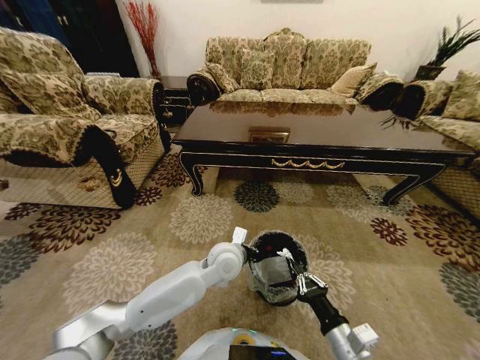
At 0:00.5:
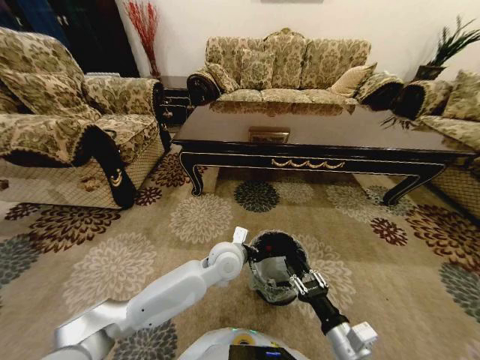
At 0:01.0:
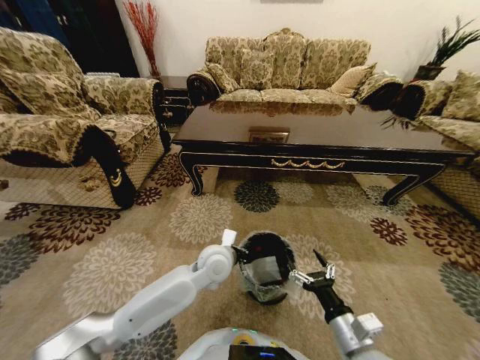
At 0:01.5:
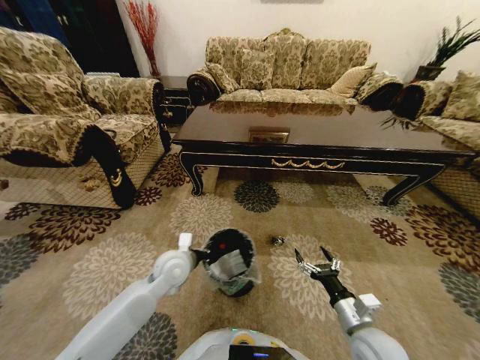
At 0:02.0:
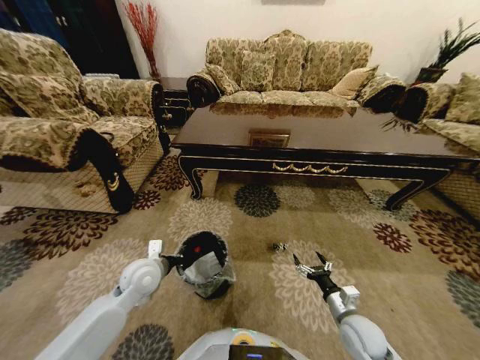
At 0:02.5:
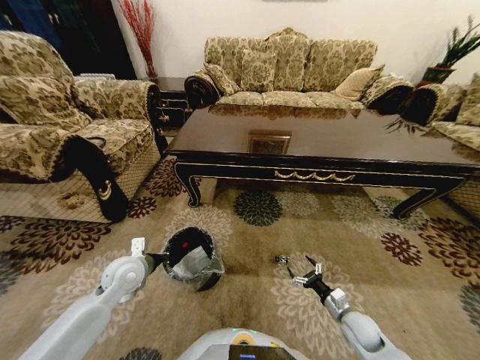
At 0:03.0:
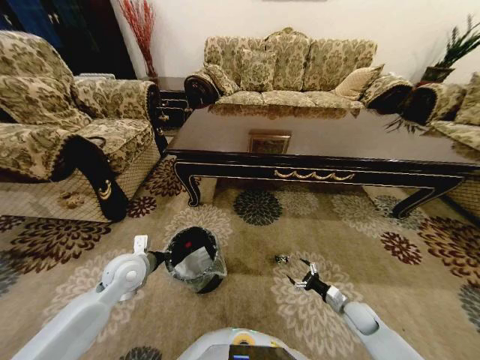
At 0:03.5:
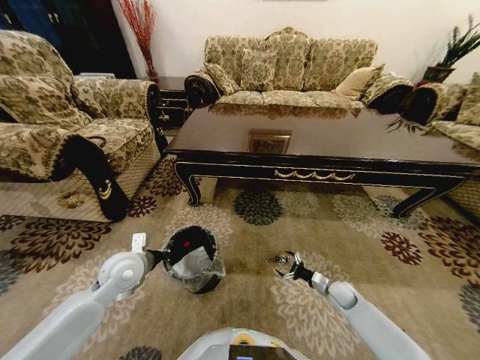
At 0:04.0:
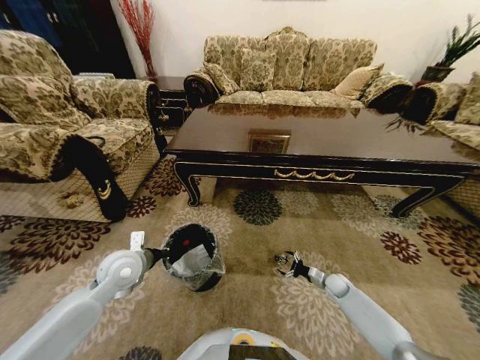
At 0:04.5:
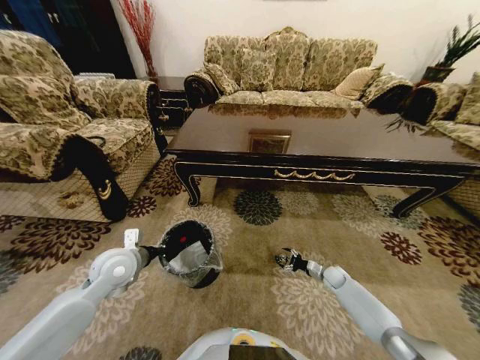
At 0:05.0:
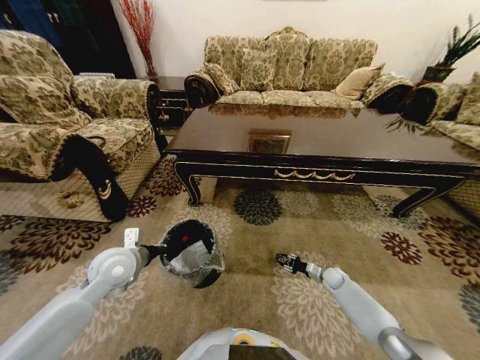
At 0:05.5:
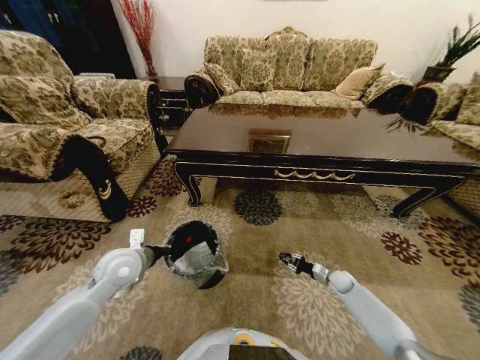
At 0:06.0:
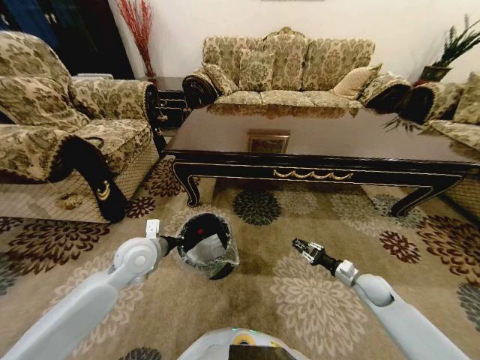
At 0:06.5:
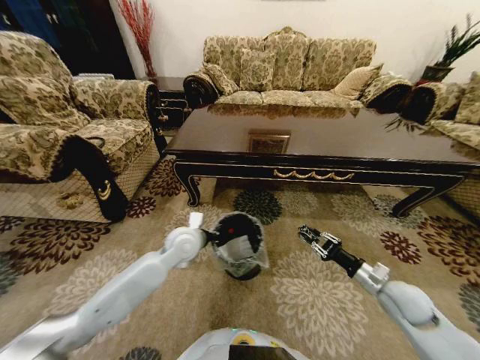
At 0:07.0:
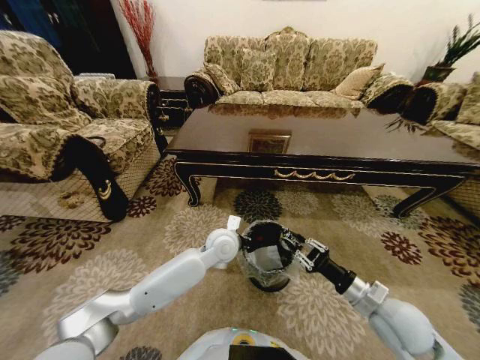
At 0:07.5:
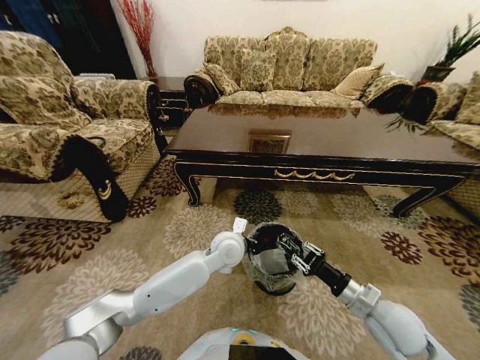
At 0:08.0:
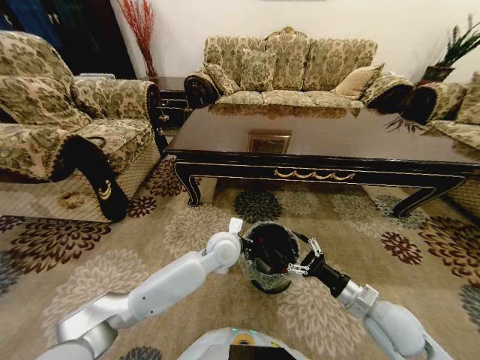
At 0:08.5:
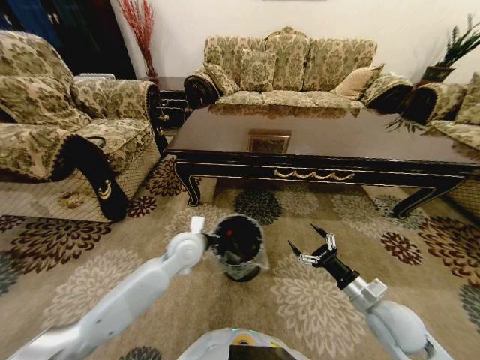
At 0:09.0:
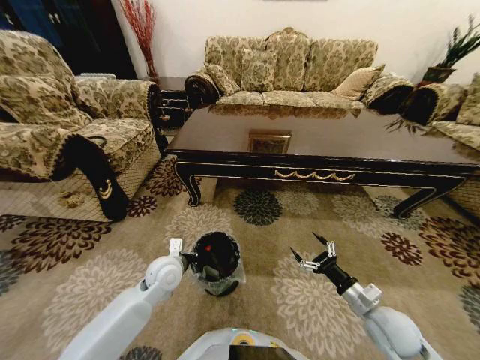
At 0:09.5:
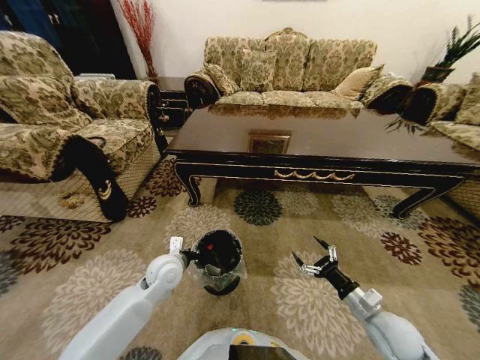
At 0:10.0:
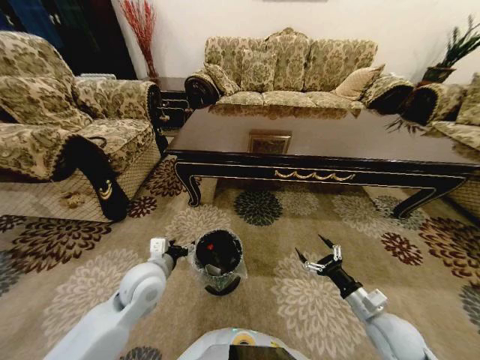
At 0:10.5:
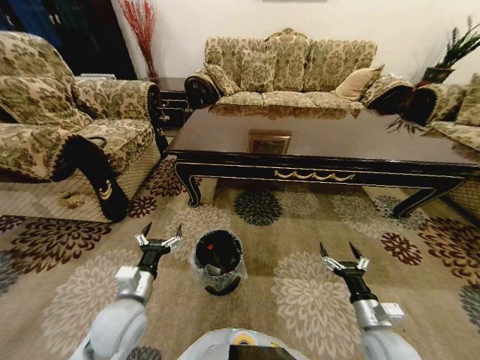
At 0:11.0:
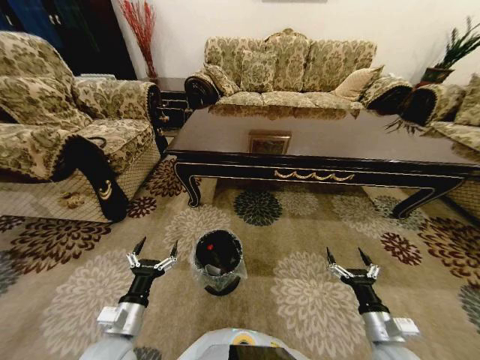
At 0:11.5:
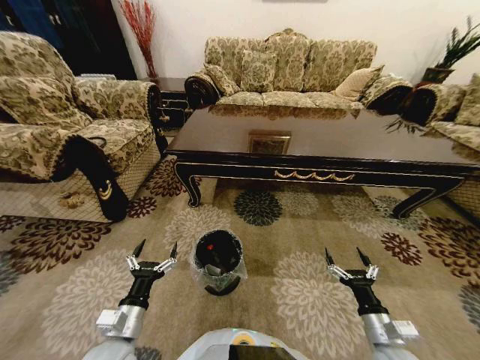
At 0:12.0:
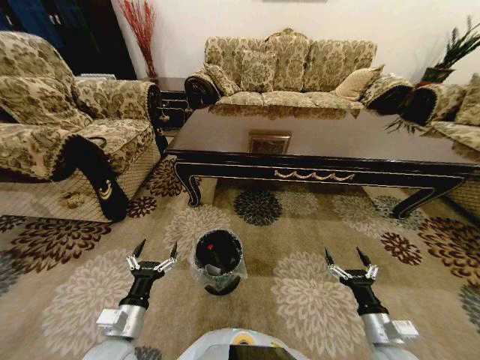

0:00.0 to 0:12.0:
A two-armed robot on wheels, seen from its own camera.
Task of the whole recording: Move to the front of the table and pick up the trash from the floor, then place it into the trash bin.
0:00.0 to 0:02.0: The right gripper goes approximately 15 cm downward, forward and to the right, and opens its fingers, while the left gripper moves to the left, about 20 cm.
0:02.0 to 0:04.0: The left gripper ends up some 5 cm from where it was. Meanwhile the right gripper travels forward, downward and to the right by roughly 20 cm.
0:04.0 to 0:06.0: The right gripper goes some 10 cm upward, and closes its fingers.
0:06.0 to 0:08.0: The left gripper heads to the right, covering approximately 20 cm. The right gripper travels upward, backward and to the left by about 20 cm, and opens its fingers.
0:08.0 to 0:10.0: The left gripper shifts approximately 20 cm to the left and backward, and opens. The right gripper is displaced downward by roughly 5 cm.
0:10.0 to 0:12.0: The left gripper moves backward and downward, some 15 cm, while the right gripper is displaced backward by some 5 cm.

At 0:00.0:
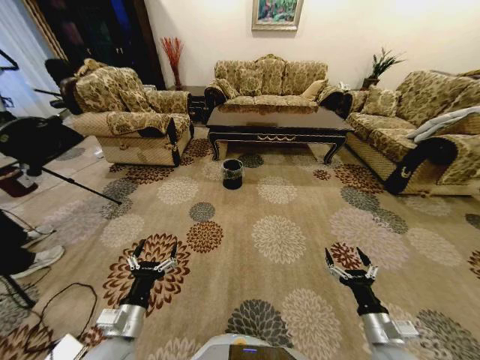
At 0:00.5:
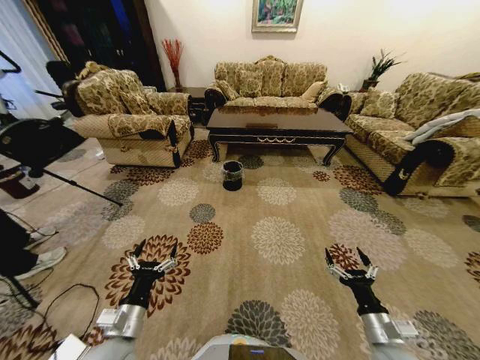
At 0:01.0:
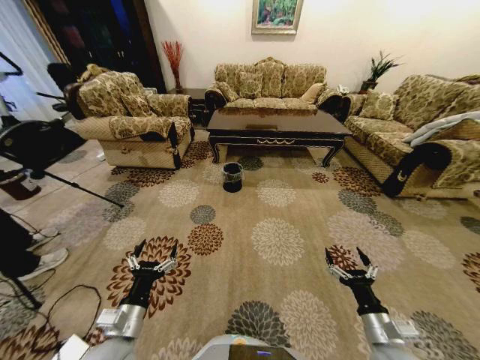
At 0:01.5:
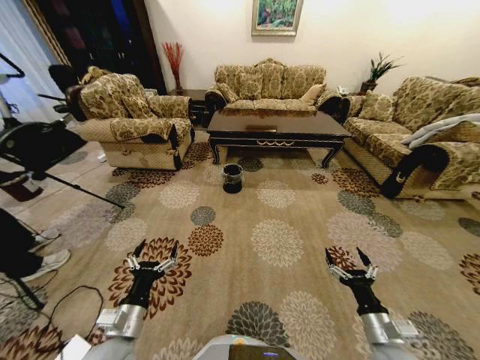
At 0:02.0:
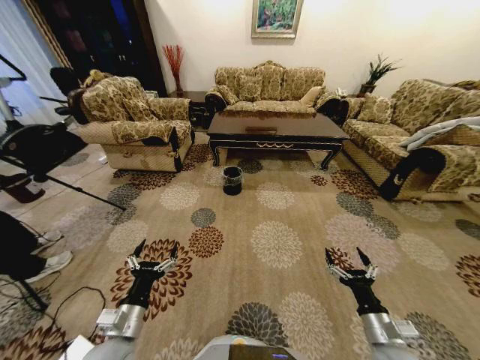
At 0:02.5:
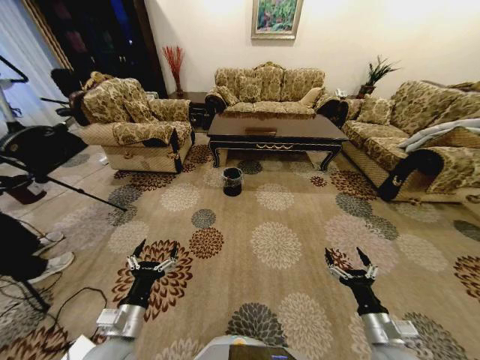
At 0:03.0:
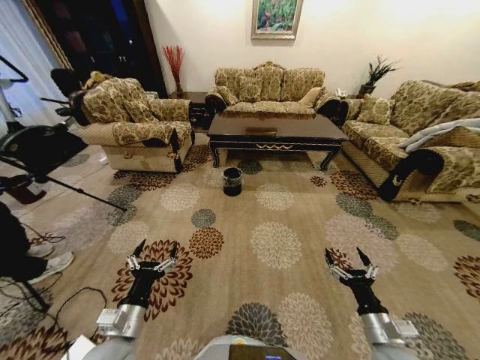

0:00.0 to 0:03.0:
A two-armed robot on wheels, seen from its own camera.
Task of the whole recording: Move to the front of the table and pick up the trash from the floor, then place it into the trash bin.
0:01.5 to 0:03.0: Both grippers stay put.

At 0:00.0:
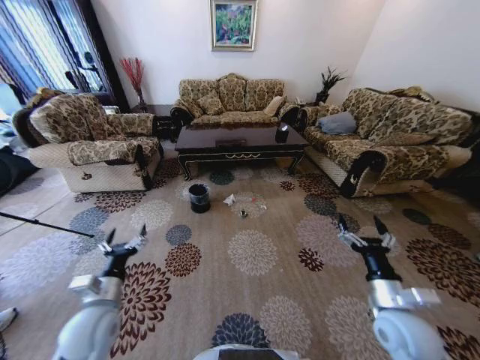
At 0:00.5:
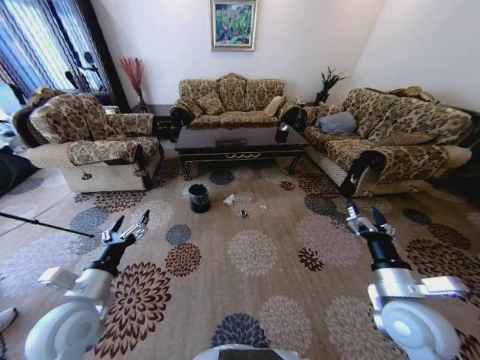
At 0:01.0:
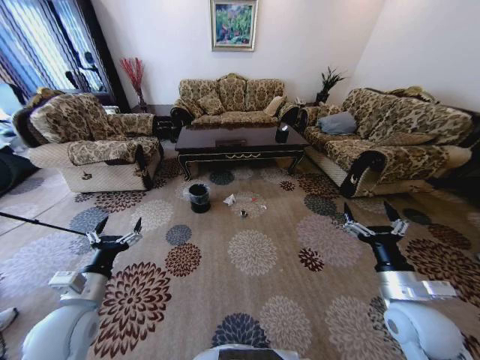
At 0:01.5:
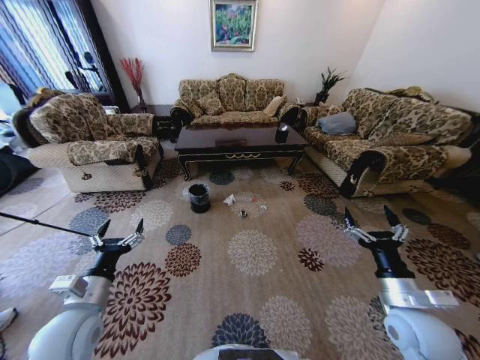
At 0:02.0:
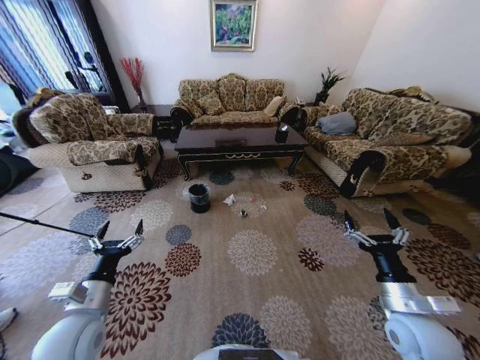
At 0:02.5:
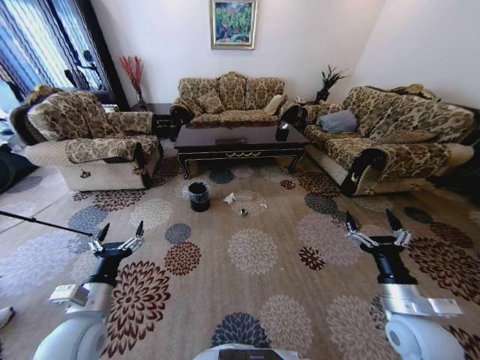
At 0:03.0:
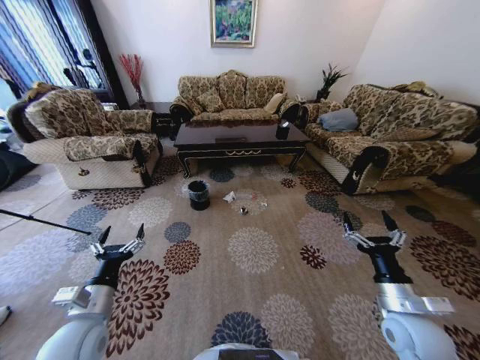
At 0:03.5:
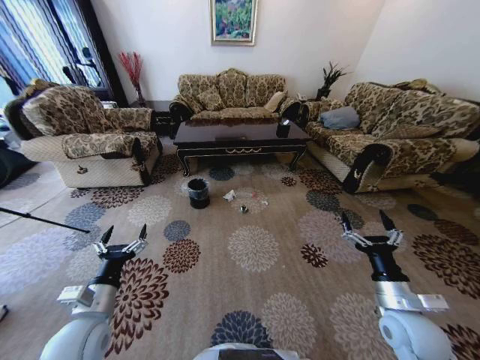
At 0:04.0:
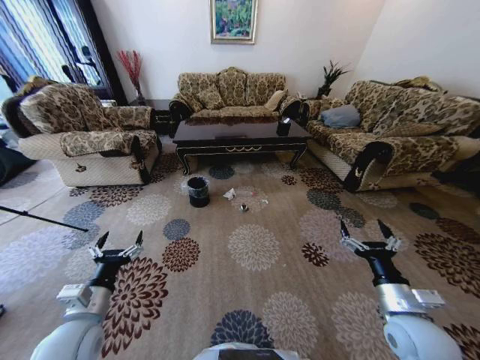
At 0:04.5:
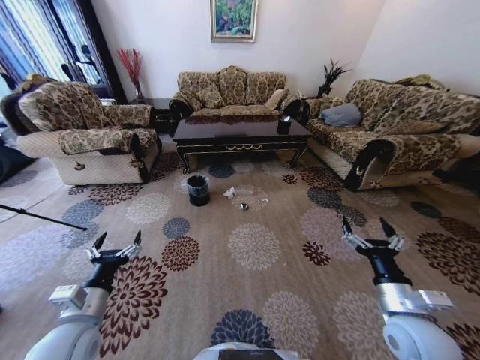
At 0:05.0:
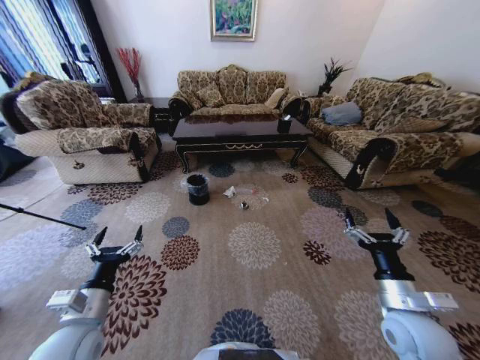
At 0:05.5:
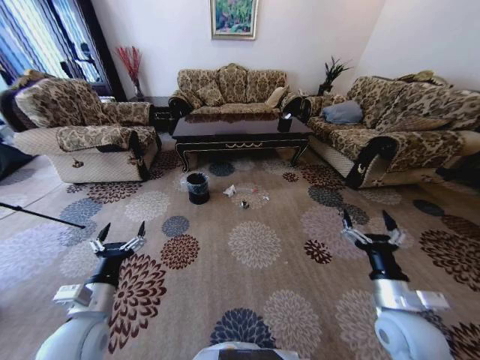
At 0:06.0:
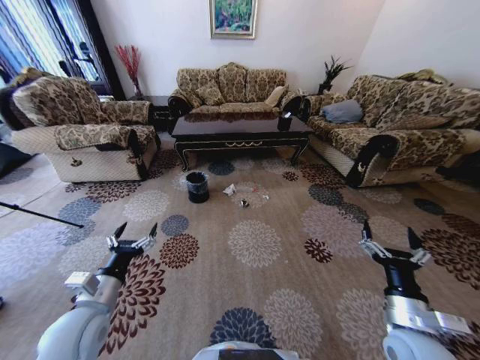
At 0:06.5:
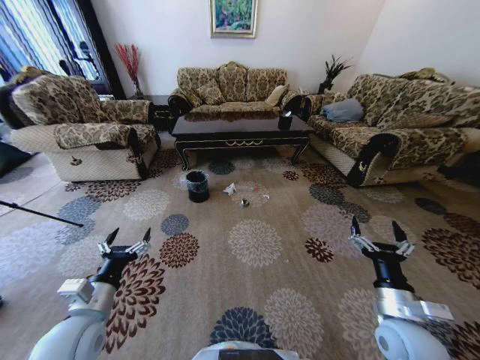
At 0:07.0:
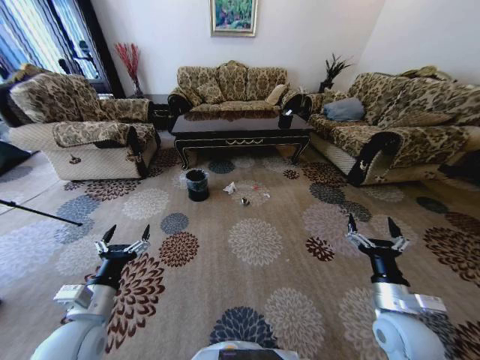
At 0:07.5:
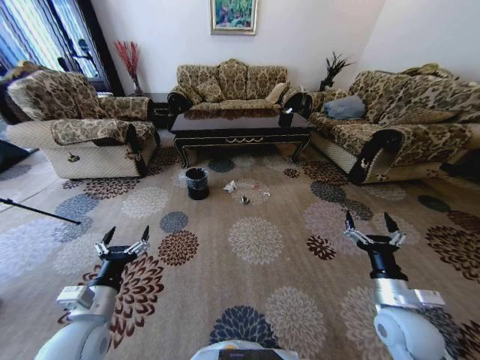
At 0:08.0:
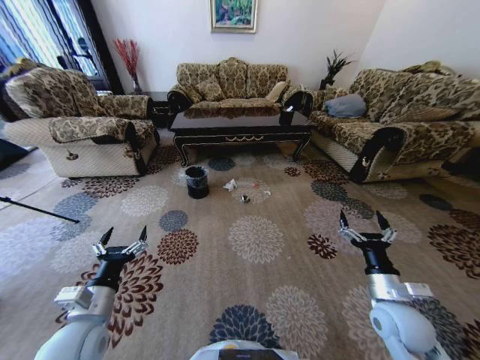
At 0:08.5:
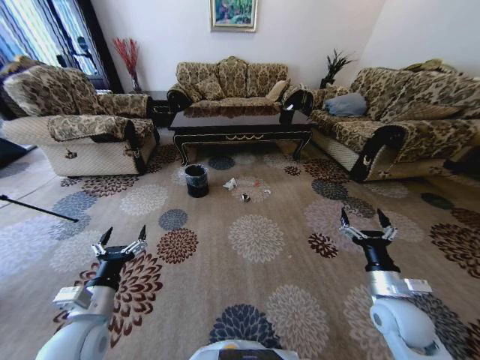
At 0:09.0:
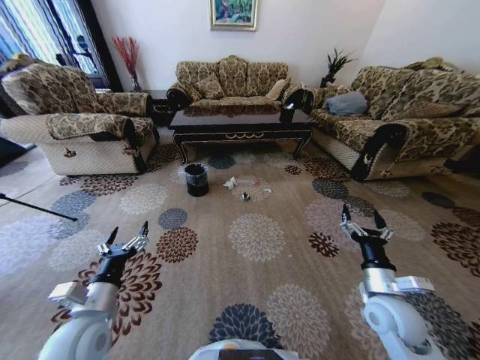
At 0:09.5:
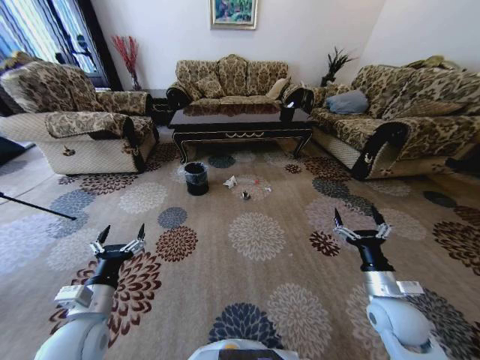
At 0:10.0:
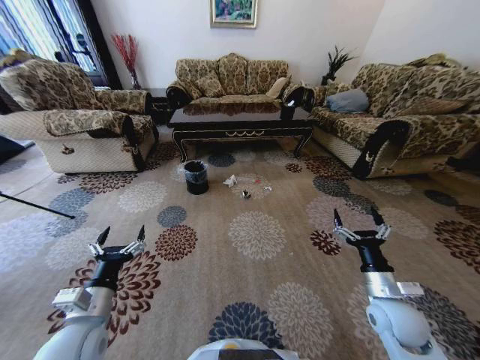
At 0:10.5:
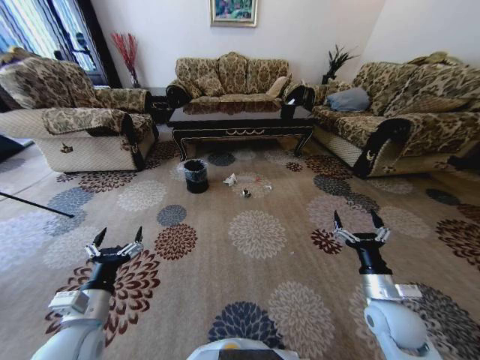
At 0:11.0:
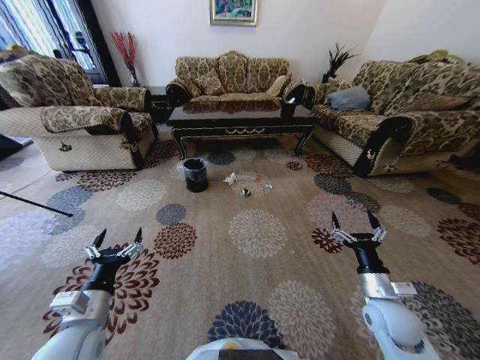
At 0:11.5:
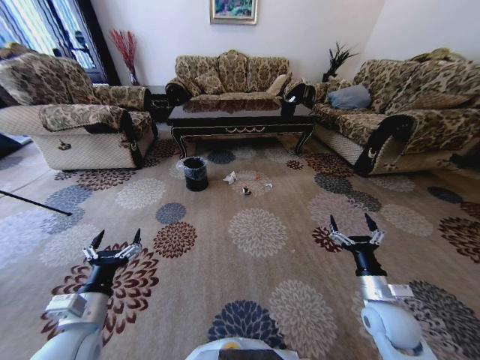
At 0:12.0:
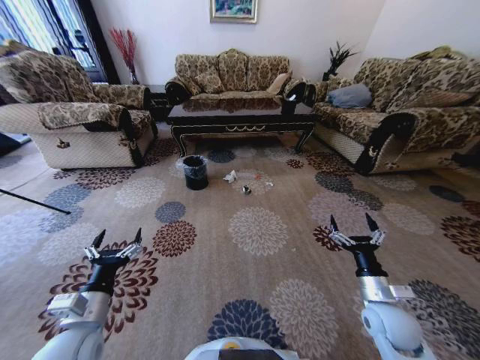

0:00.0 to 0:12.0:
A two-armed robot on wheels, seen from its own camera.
Task of the whole recording: Move to the front of the table and pick up the trash from the floor, then place it into the trash bin.
0:06.0 to 0:08.0: The right gripper goes roughly 5 cm forward.
